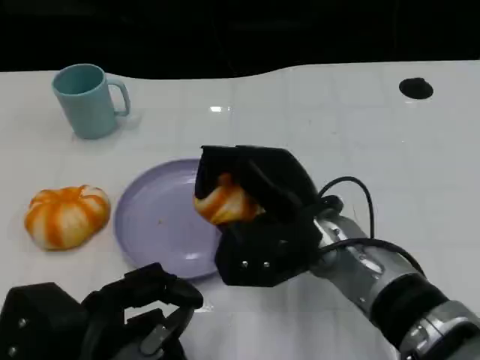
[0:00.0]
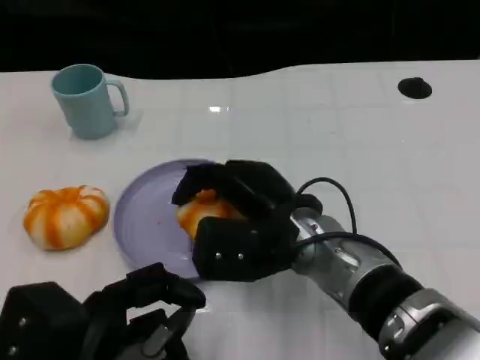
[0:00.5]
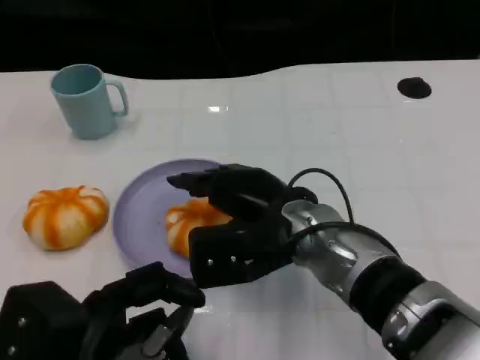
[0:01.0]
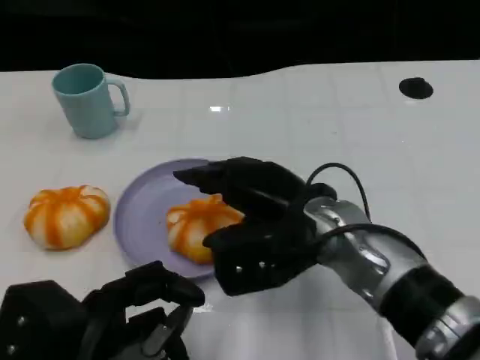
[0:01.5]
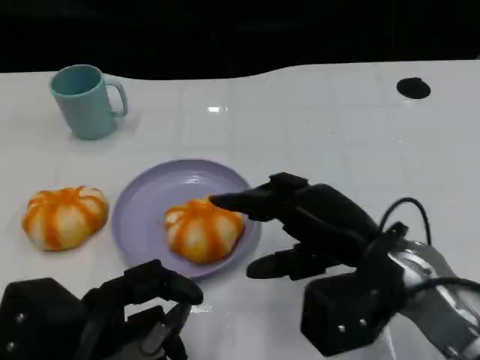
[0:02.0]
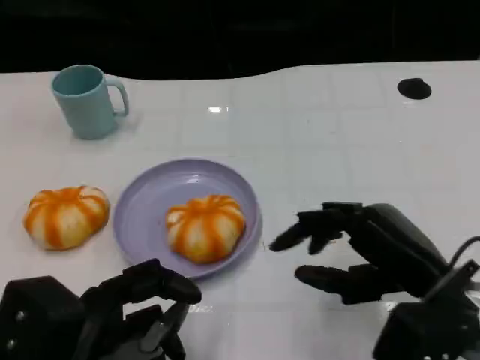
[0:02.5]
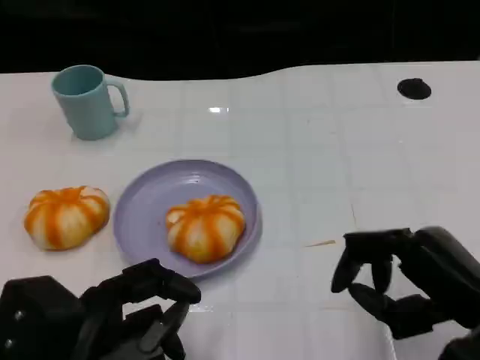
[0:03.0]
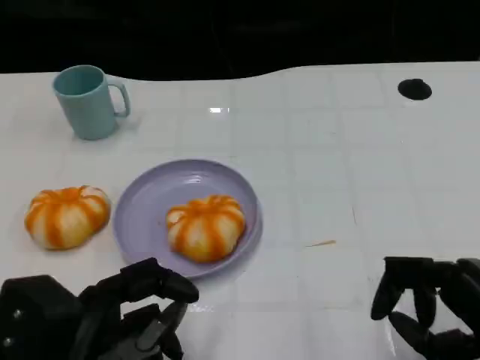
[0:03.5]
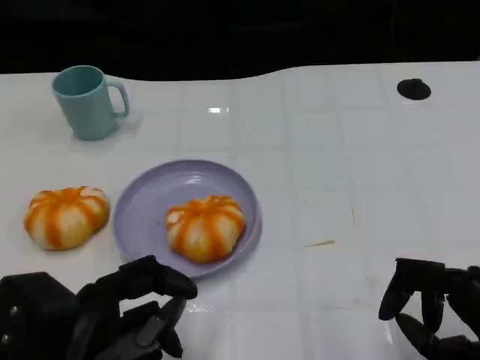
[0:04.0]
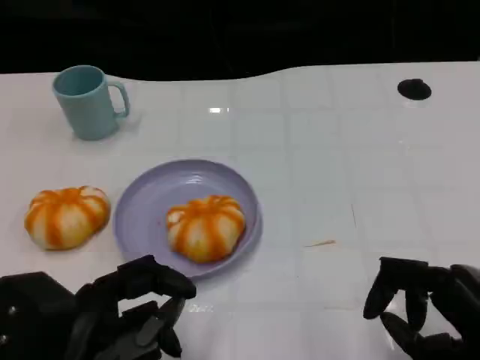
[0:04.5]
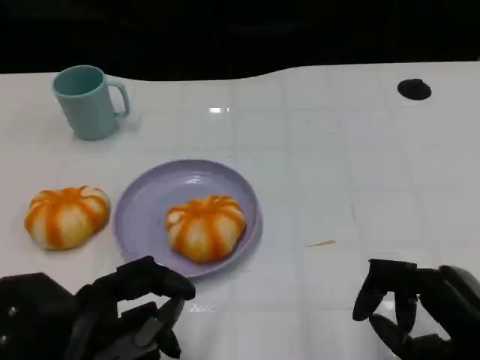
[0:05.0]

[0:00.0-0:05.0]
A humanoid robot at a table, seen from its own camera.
Task of the whole recording: Grasp the bread from the table and place it into the plate.
0:00.0 to 0:02.5: The right hand is displaced to the right and backward by roughly 15 cm.
0:02.5 to 0:05.0: The right hand moves backward, some 5 cm.

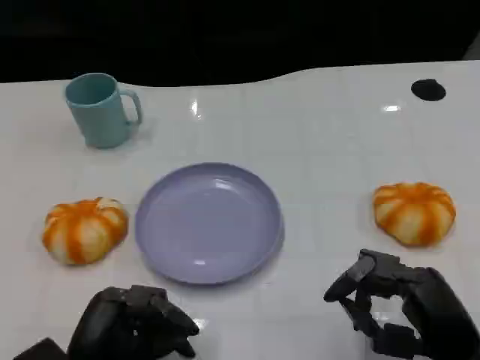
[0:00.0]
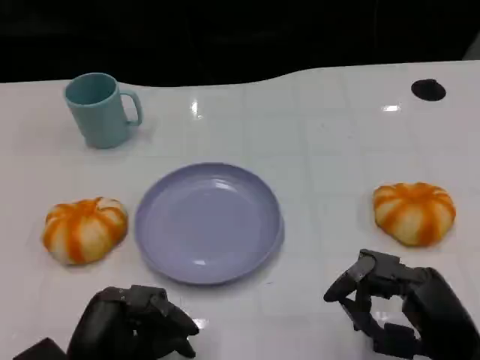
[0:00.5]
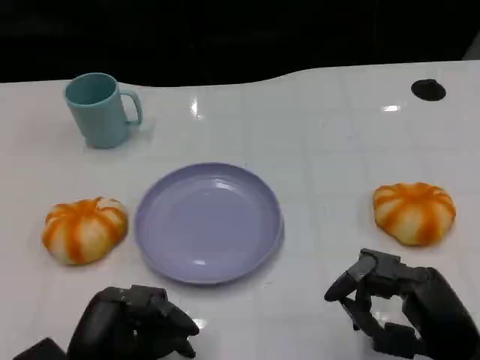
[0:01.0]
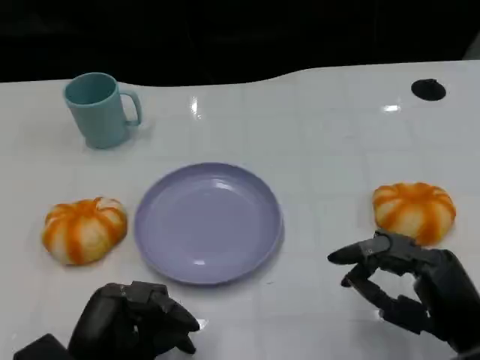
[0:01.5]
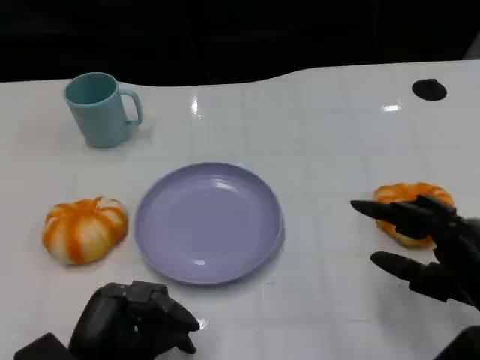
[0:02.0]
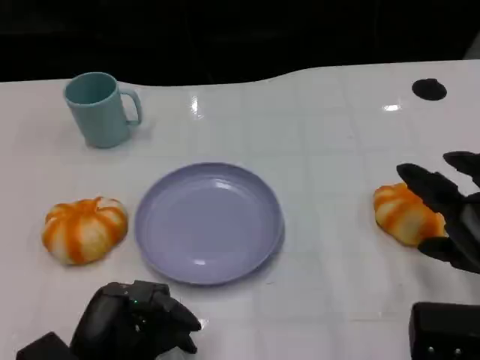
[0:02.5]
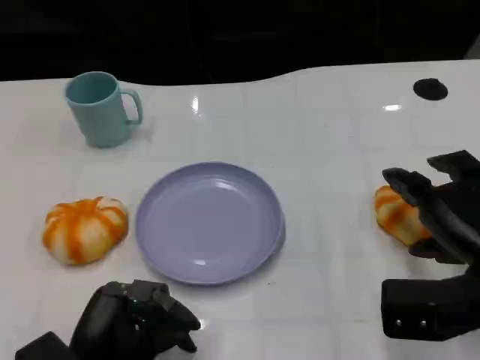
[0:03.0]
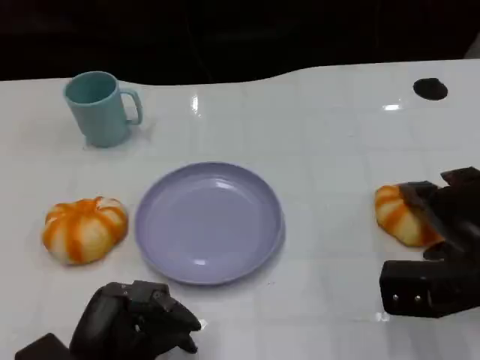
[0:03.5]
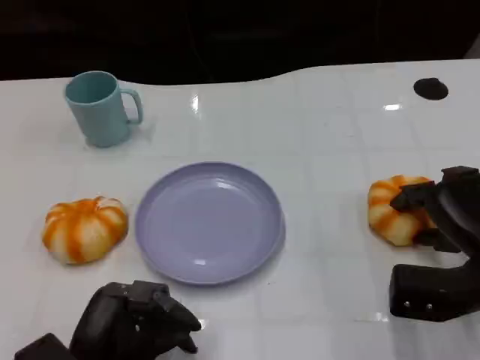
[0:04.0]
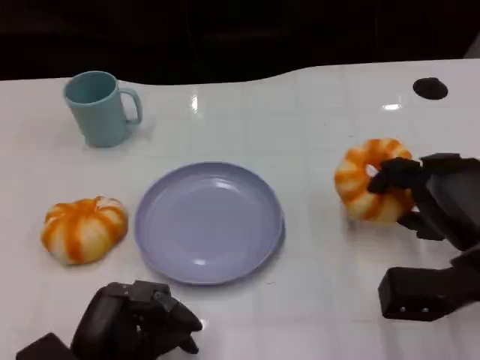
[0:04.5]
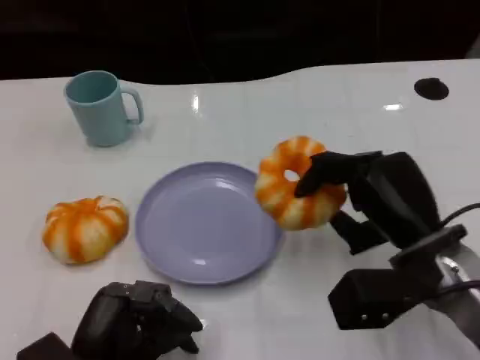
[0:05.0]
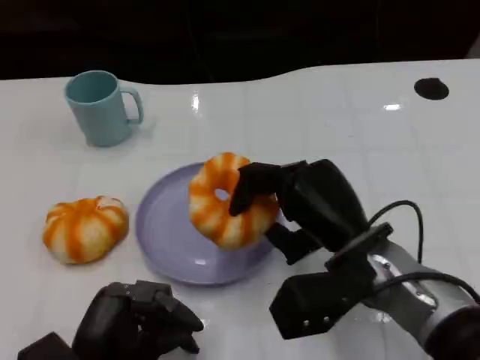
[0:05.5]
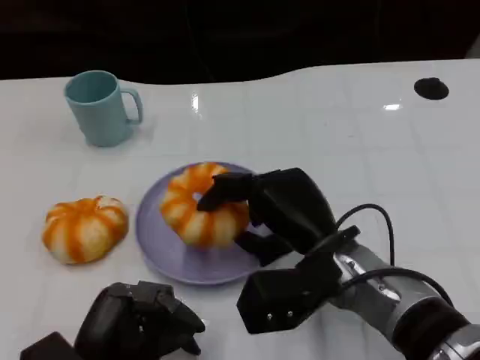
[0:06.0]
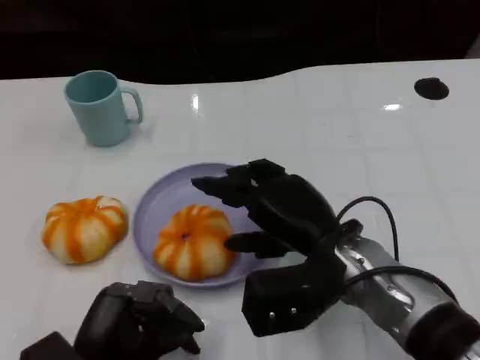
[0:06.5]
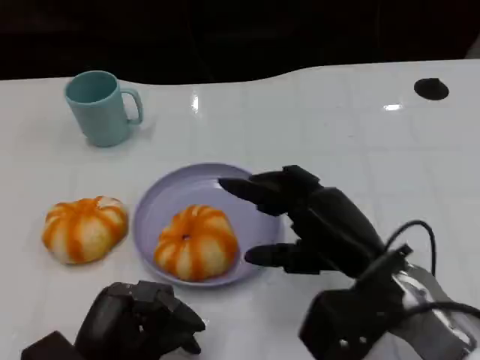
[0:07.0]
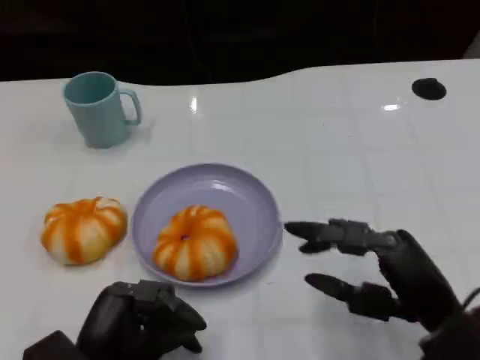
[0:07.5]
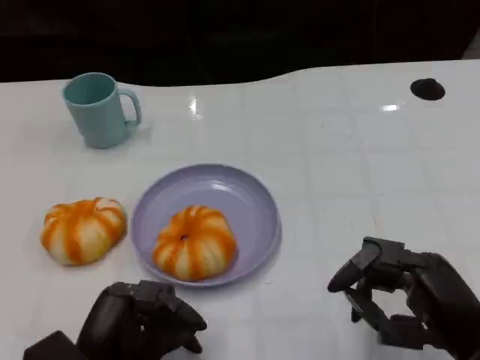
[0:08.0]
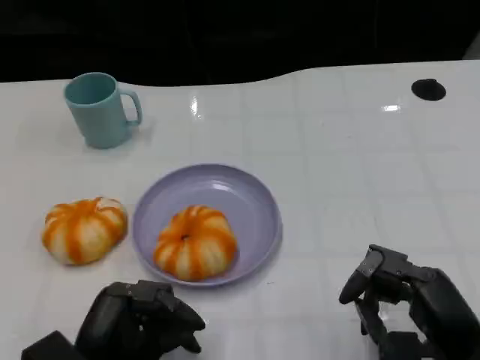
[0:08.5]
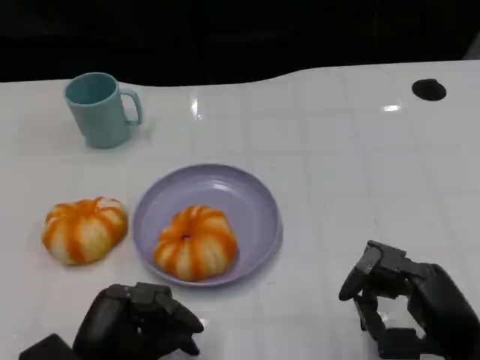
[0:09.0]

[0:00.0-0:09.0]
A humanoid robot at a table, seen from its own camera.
Task of the whole recording: Grasp the bread from the table and place it into the plate.
0:00.0 to 0:02.0: The right hand changes place by about 5 cm.
0:02.0 to 0:04.5: The right hand travels forward by about 5 cm.
0:04.5 to 0:07.0: The right hand shifts roughly 10 cm to the left.
0:07.0 to 0:09.0: The right hand moves to the right and backward, some 10 cm.

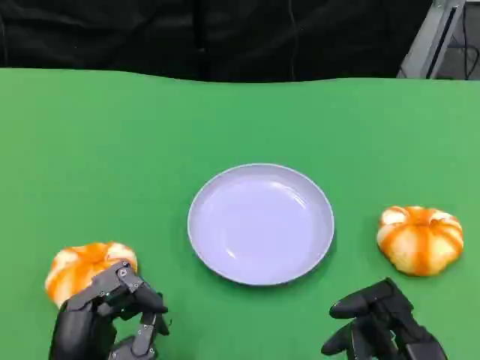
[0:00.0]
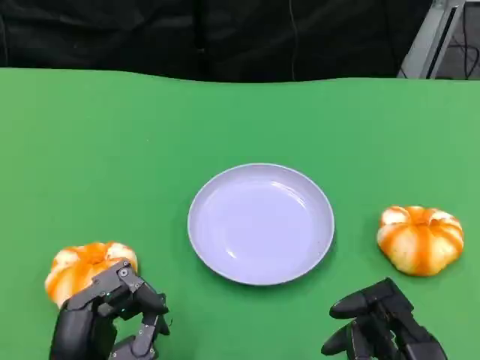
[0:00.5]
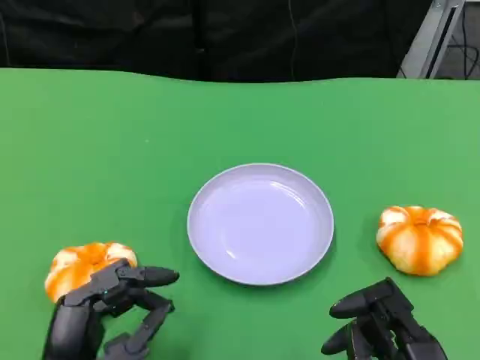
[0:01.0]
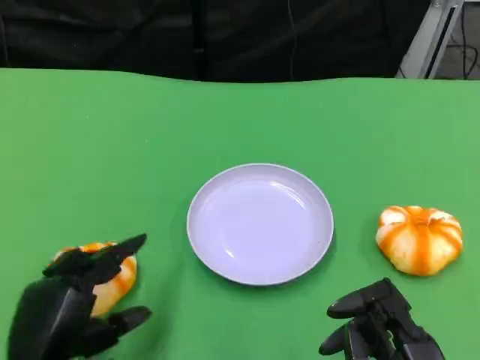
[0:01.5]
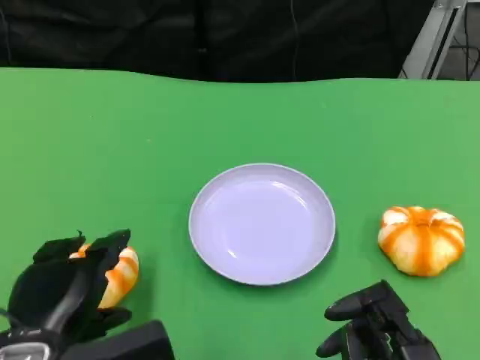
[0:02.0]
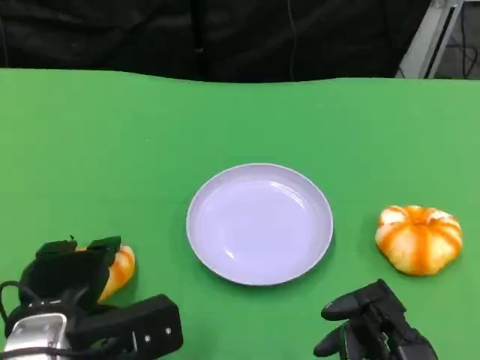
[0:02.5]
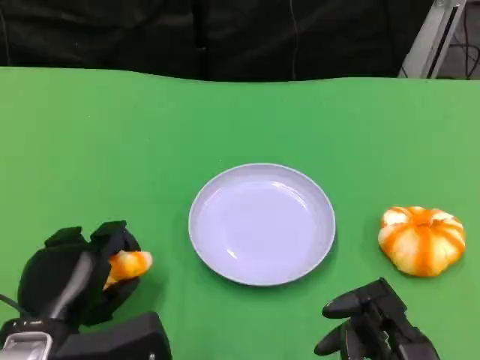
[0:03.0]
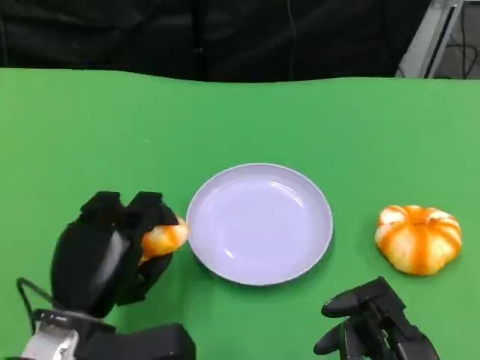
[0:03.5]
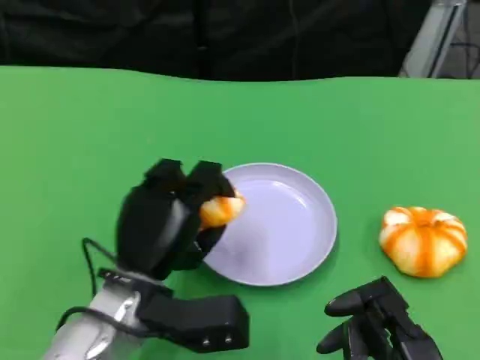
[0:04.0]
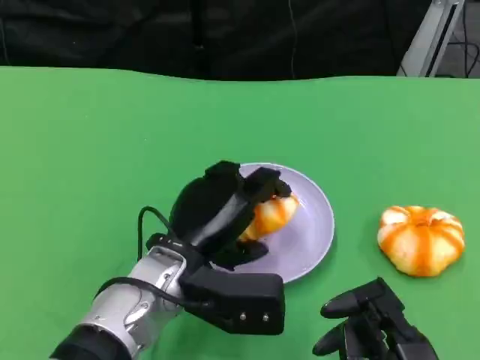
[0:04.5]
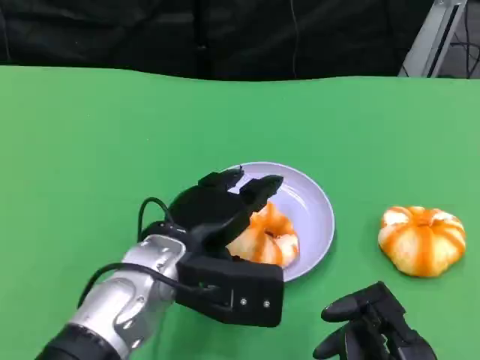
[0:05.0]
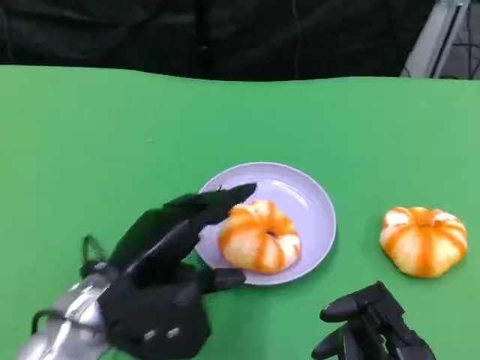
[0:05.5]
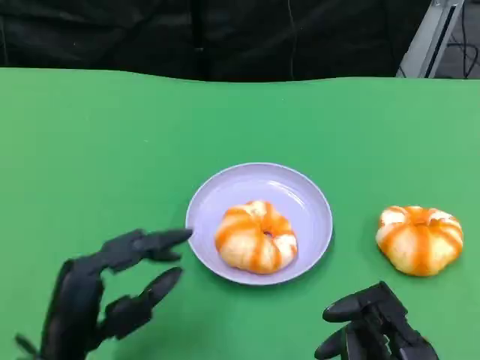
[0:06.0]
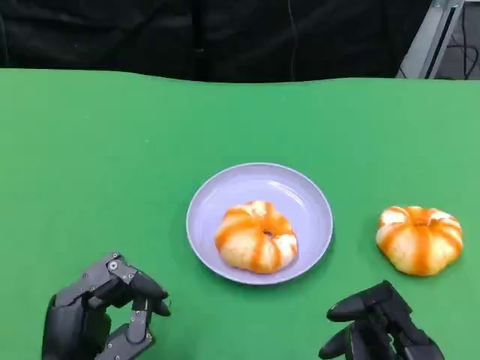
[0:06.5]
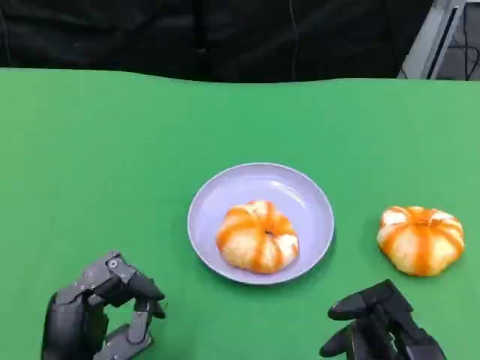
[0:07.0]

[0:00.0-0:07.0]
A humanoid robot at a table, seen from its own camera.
Task of the whole recording: Grasp the bread from the table and place it into the plate.
0:00.0 to 0:02.0: The left hand changes place by approximately 5 cm.
0:03.5 to 0:05.0: The left hand goes some 10 cm to the right and forward.
0:05.0 to 0:07.0: The left hand heads backward, to the left and downward, covering about 15 cm.

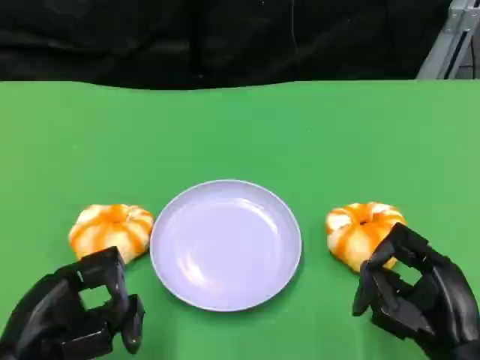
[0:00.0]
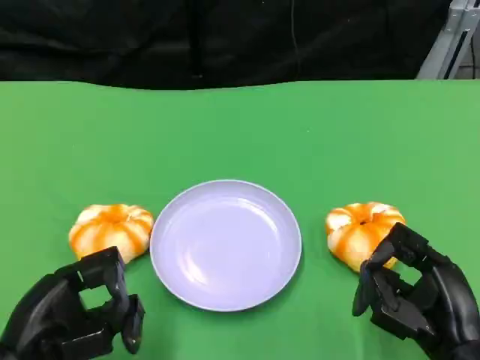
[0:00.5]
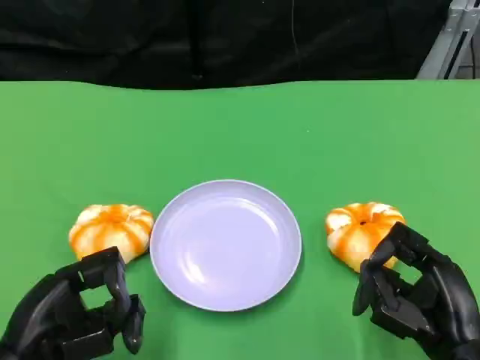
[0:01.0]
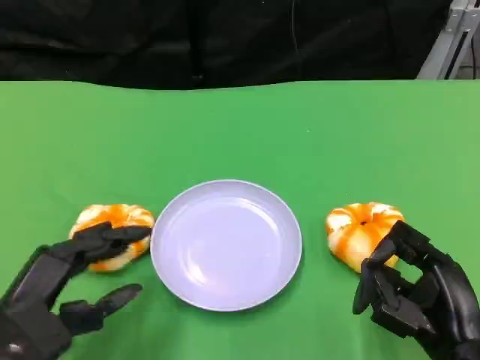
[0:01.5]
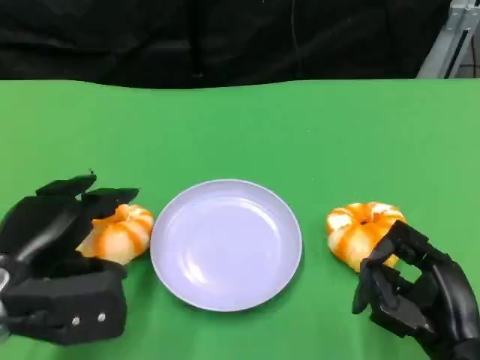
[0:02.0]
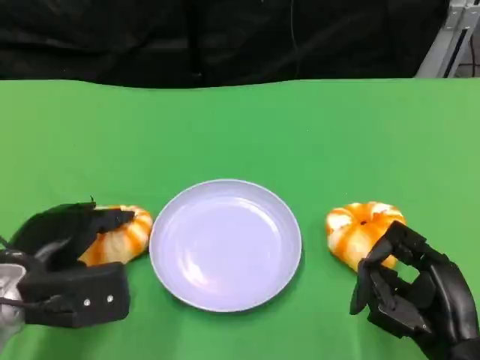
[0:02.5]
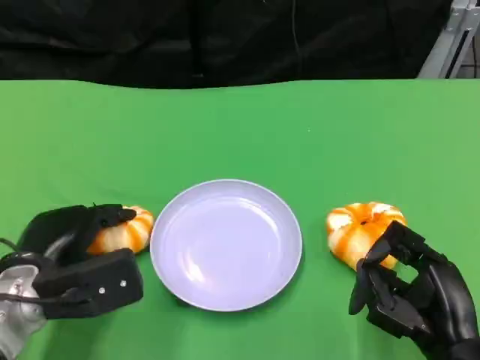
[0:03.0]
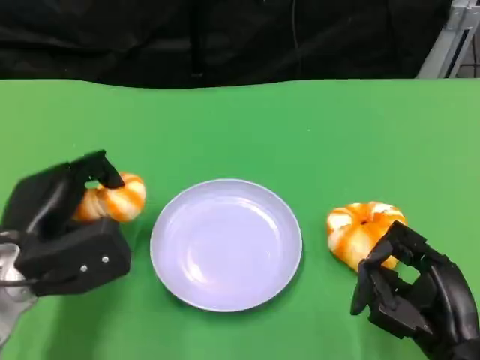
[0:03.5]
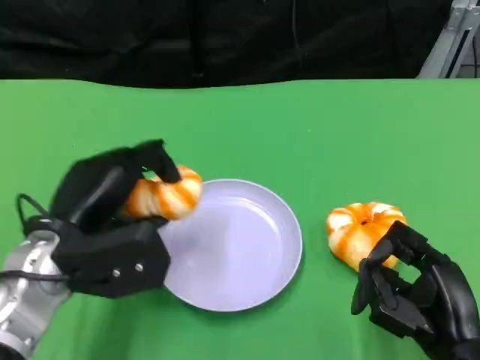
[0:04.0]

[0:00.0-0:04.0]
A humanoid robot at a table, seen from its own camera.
Task of the whole recording: Grasp the bread from the table and place it into the plate.
0:00.0 to 0:02.0: The left hand heads forward, covering roughly 5 cm.
0:02.0 to 0:04.0: The left hand is displaced to the right by approximately 5 cm.
